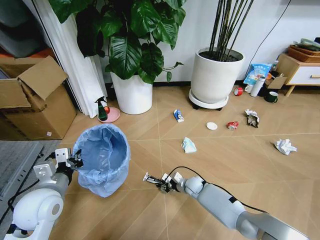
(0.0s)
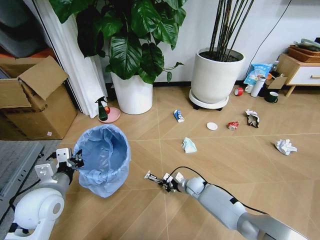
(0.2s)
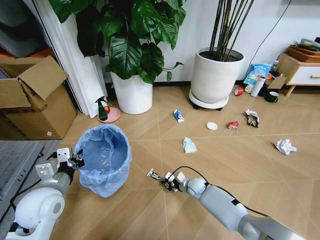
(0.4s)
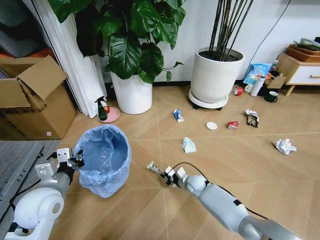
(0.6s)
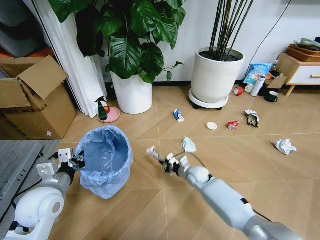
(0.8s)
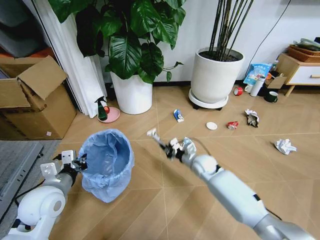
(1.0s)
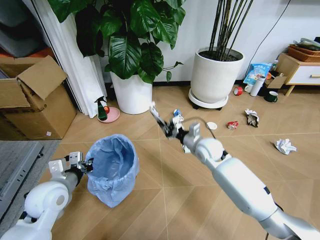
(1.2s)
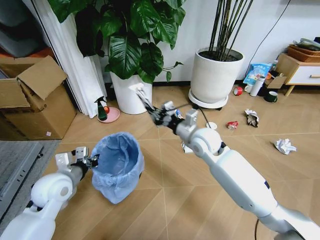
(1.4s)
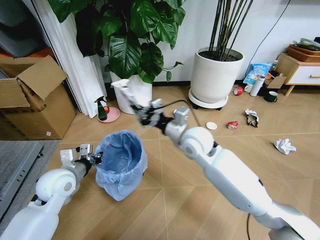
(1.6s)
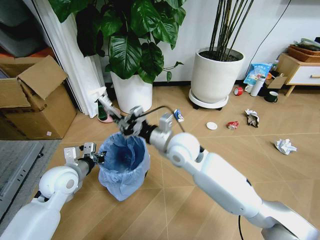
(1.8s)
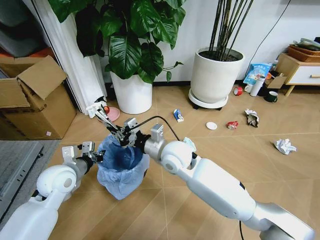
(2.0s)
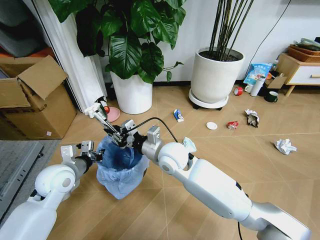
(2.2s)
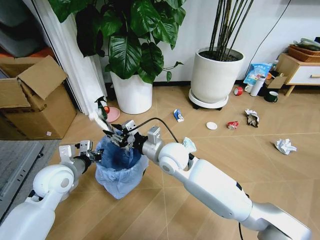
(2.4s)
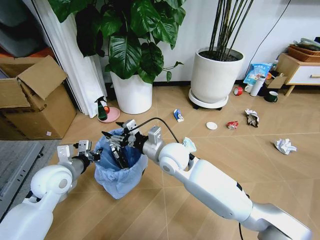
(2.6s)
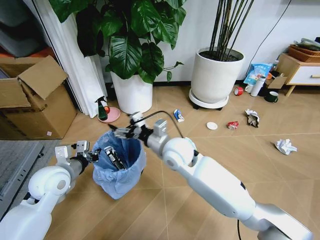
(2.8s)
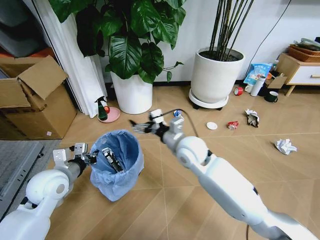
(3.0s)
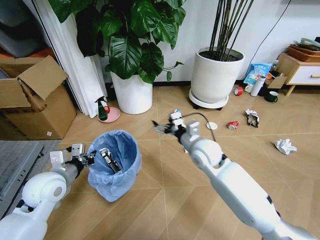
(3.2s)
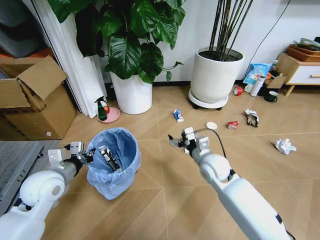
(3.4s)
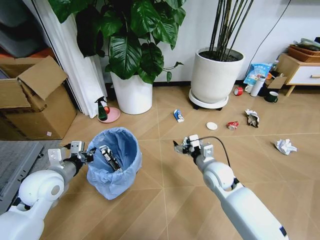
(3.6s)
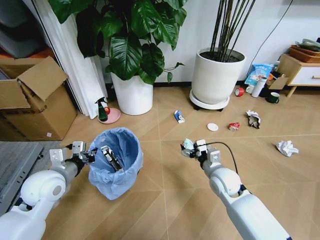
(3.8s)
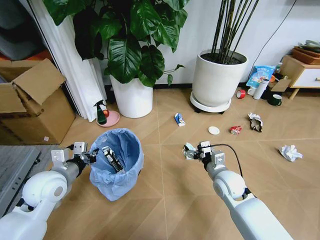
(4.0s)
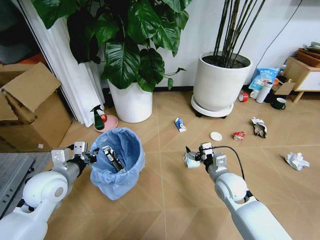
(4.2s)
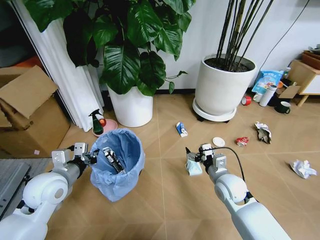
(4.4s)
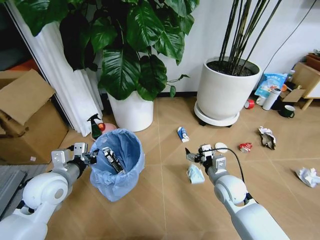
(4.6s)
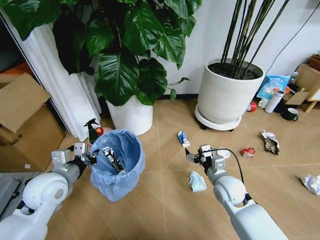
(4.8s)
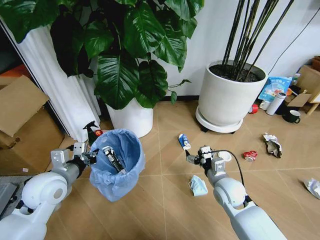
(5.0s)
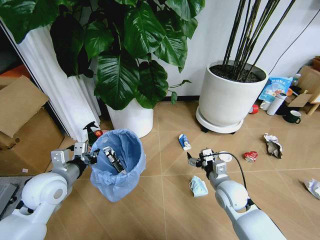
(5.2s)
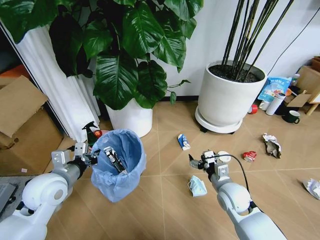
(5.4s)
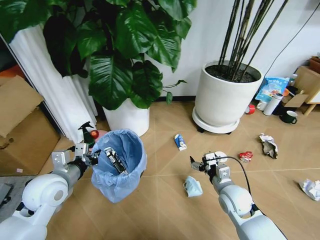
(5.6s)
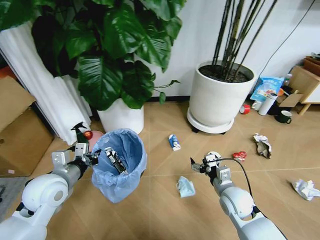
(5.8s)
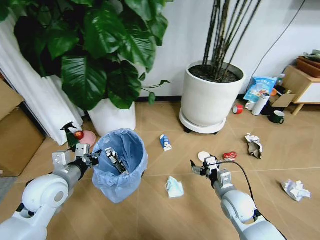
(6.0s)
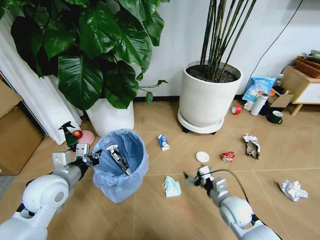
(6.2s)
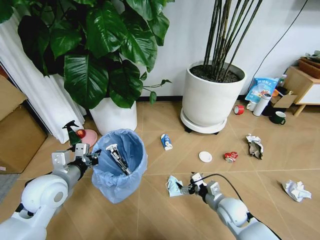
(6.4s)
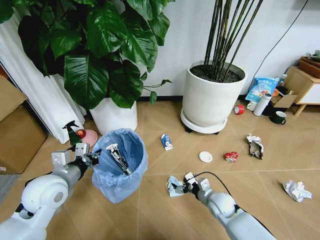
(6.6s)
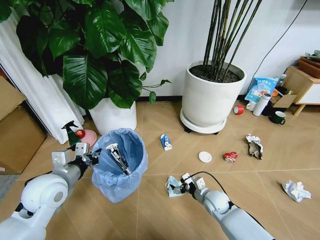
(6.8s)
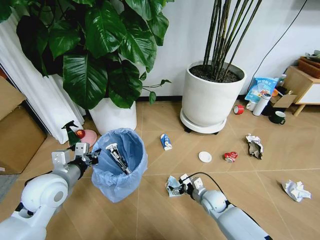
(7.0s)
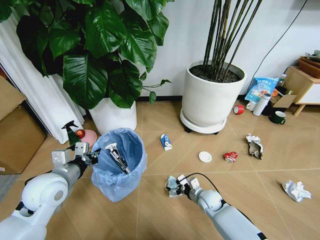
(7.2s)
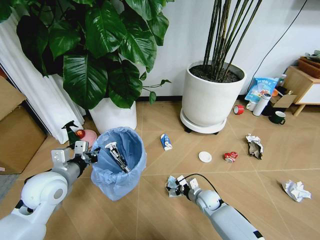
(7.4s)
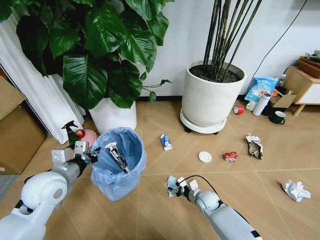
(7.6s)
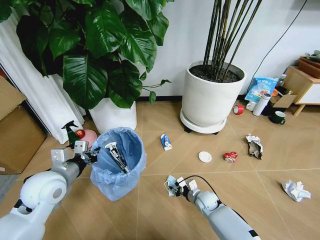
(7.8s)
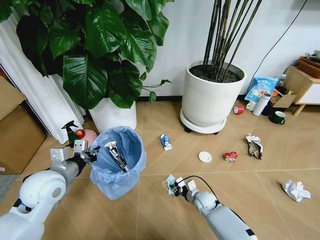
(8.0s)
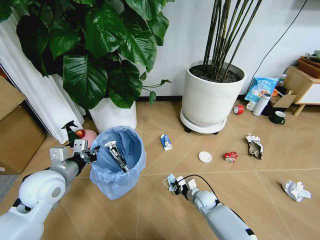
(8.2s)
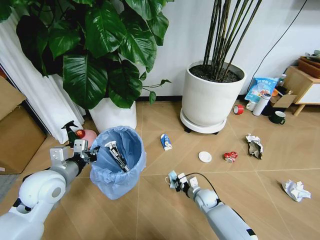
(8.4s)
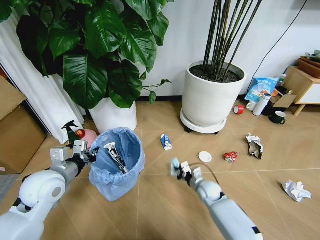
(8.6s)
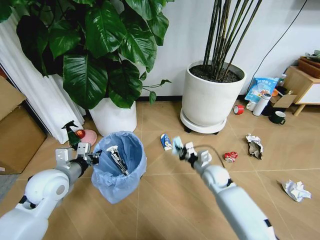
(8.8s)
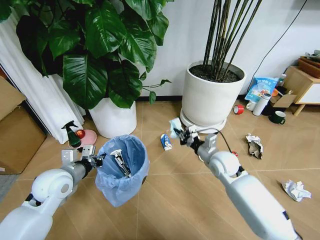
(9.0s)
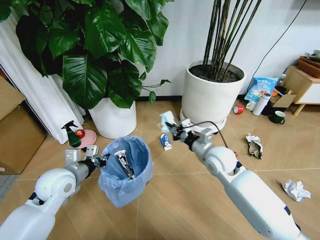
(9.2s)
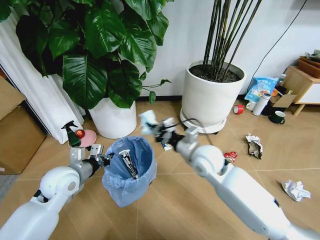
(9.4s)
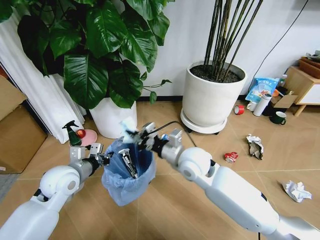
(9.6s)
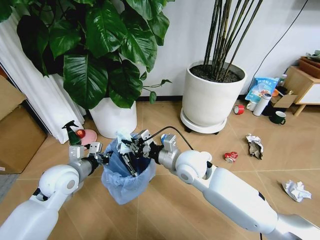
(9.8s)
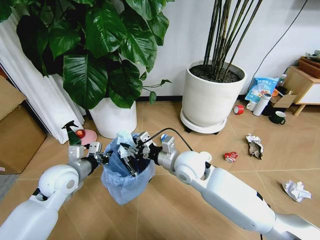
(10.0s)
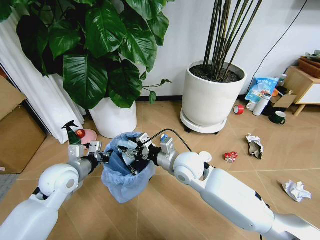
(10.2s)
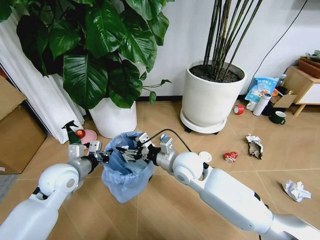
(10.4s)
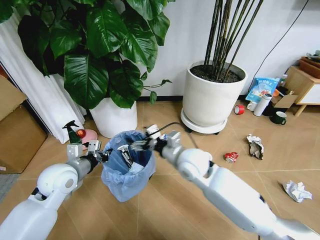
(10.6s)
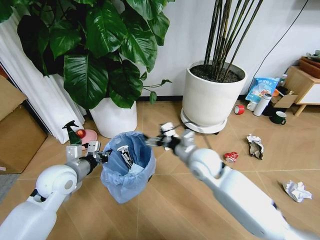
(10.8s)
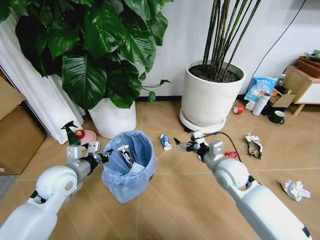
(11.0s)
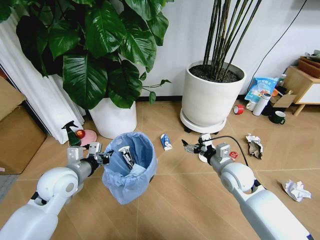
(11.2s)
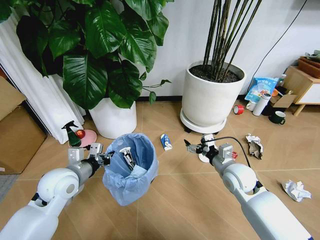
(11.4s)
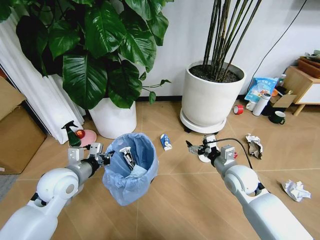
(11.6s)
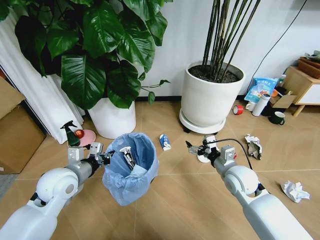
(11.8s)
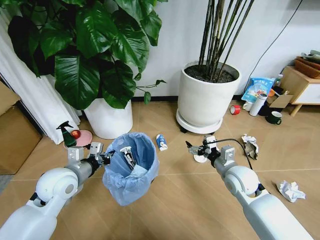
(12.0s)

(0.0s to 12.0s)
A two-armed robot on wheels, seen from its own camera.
Task of the whole recording: Pick up the trash bin and place the garbage on the floor into it.
0.0s - 1.6s: The right gripper moves upward, some 35 cm; the left gripper heads forward, covering roughly 5 cm.
1.6s - 3.0s: The right gripper opens.
3.0s - 4.4s: The right gripper travels to the right, downward and backward by some 20 cm.
4.4s - 6.0s: The right gripper moves about 5 cm.
6.0s - 7.6s: The right gripper moves downward and forward, roughly 15 cm, and closes.
7.6s - 9.0s: The right gripper goes roughly 20 cm upward, and closes.
9.0s - 10.4s: The right gripper shifts approximately 15 cm to the left, and opens its fingers.
10.4s - 12.0s: The right gripper shifts roughly 20 cm to the right.

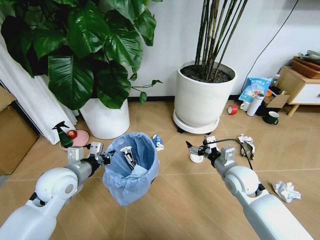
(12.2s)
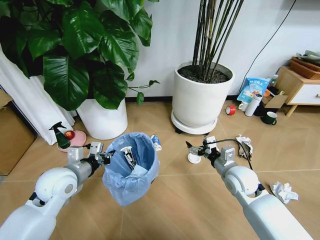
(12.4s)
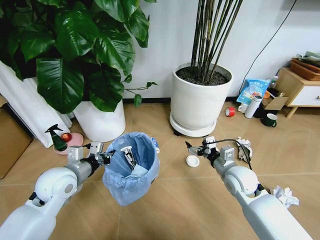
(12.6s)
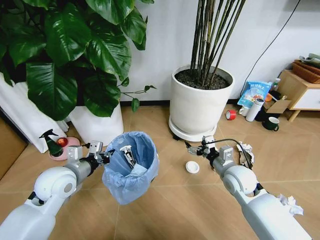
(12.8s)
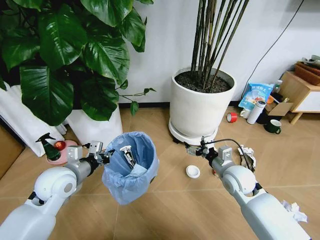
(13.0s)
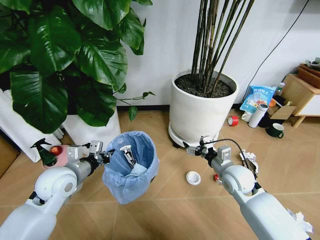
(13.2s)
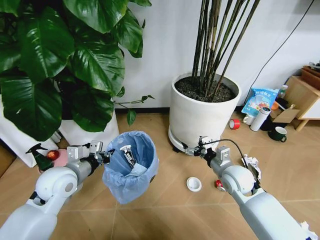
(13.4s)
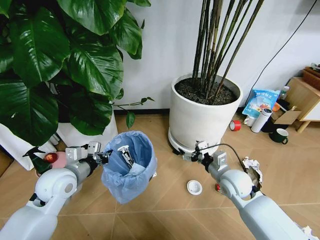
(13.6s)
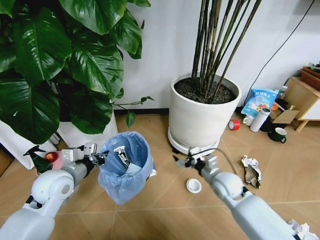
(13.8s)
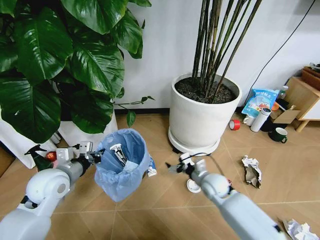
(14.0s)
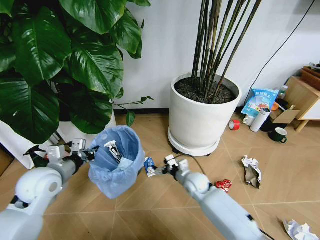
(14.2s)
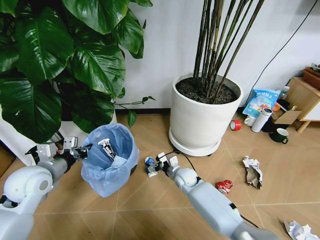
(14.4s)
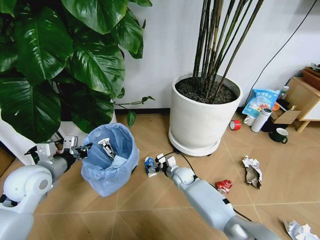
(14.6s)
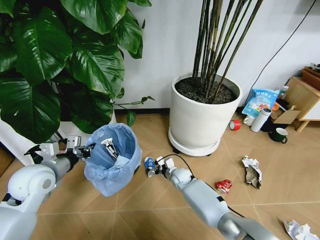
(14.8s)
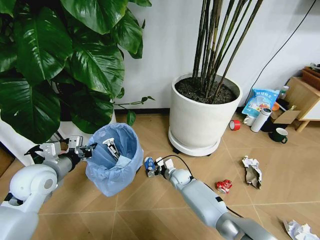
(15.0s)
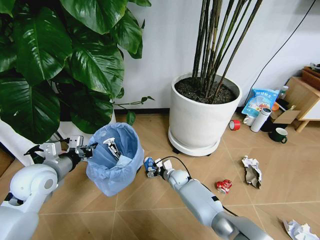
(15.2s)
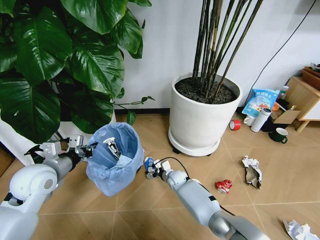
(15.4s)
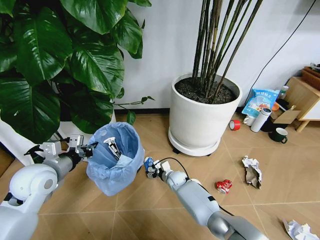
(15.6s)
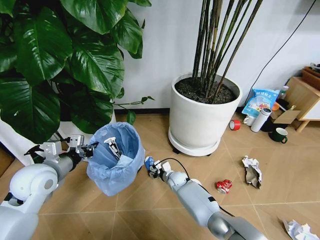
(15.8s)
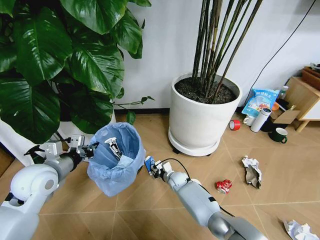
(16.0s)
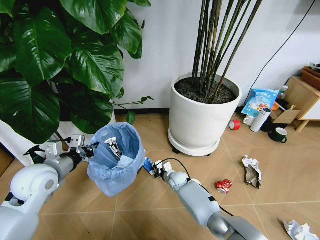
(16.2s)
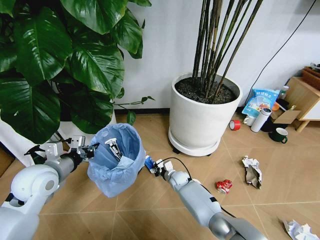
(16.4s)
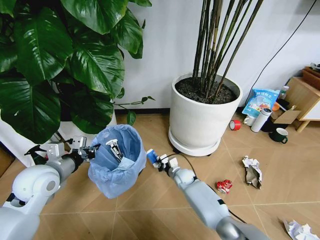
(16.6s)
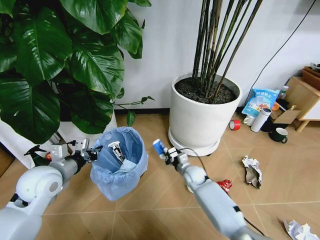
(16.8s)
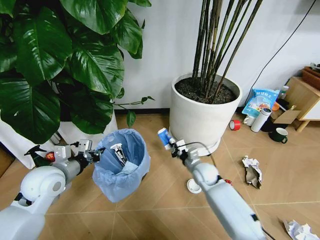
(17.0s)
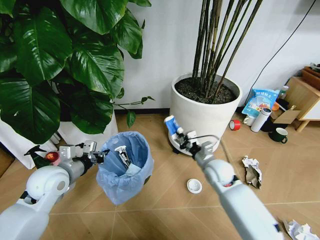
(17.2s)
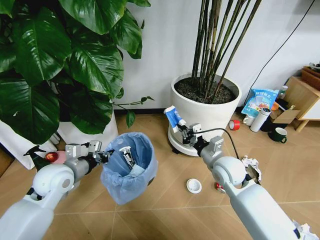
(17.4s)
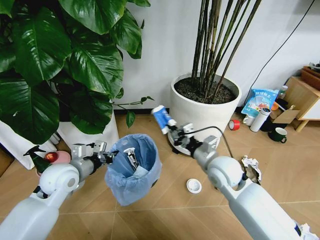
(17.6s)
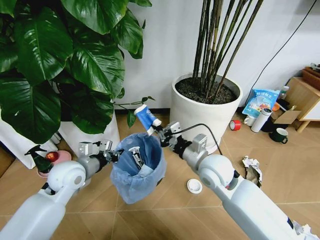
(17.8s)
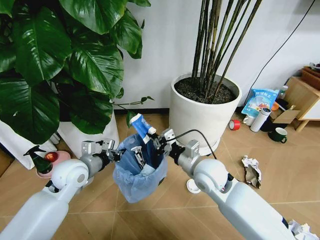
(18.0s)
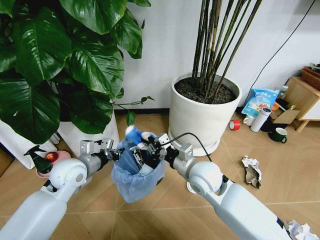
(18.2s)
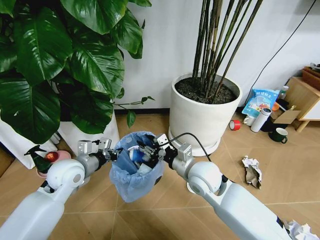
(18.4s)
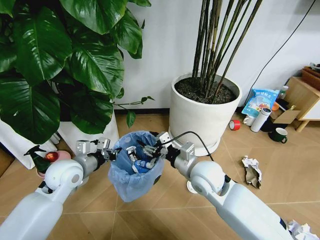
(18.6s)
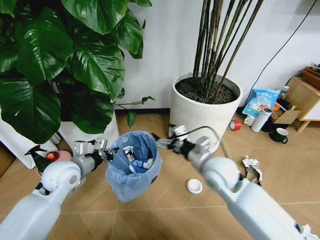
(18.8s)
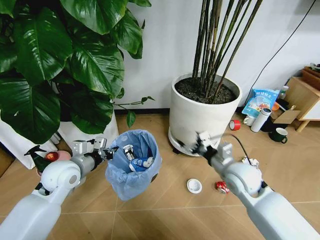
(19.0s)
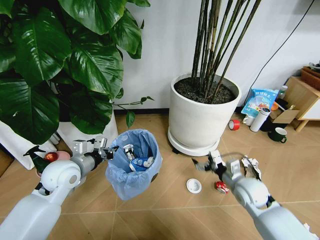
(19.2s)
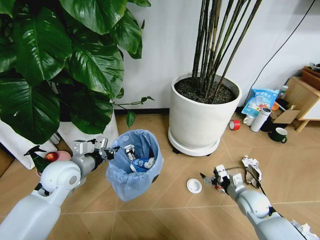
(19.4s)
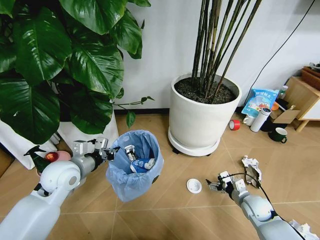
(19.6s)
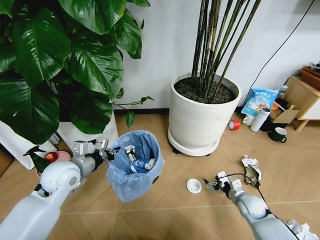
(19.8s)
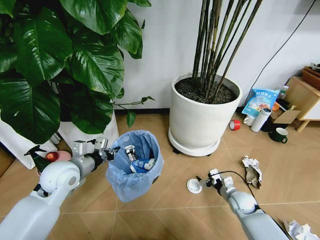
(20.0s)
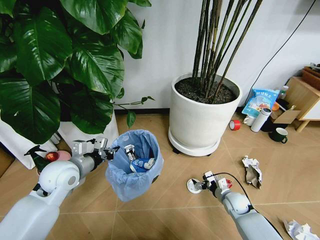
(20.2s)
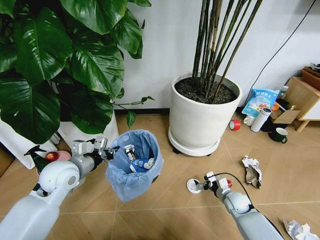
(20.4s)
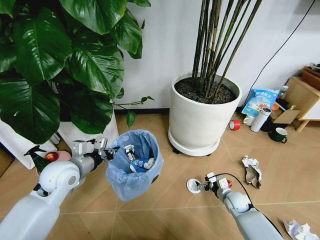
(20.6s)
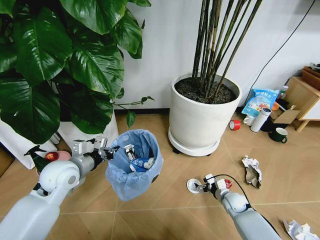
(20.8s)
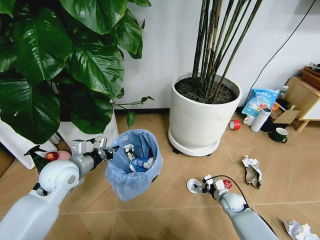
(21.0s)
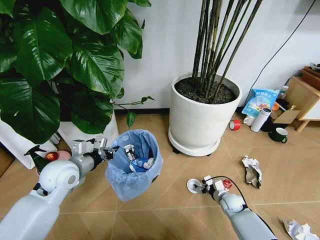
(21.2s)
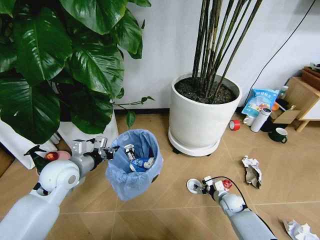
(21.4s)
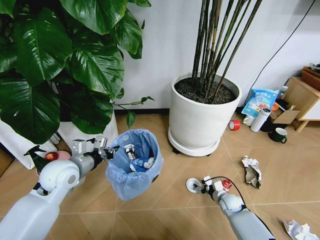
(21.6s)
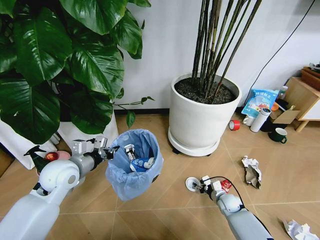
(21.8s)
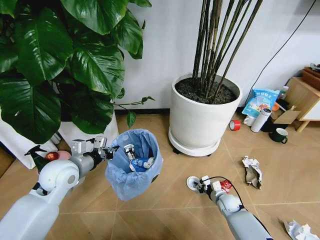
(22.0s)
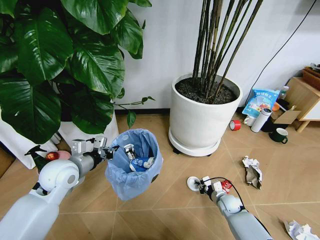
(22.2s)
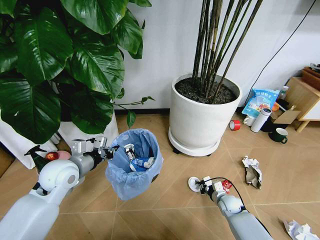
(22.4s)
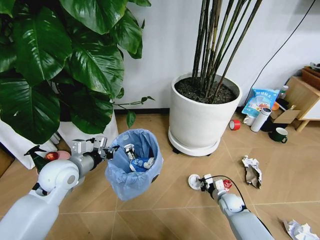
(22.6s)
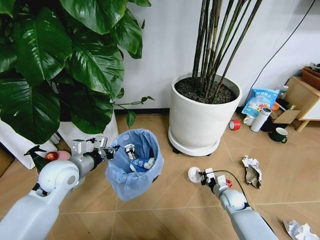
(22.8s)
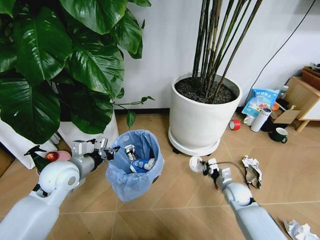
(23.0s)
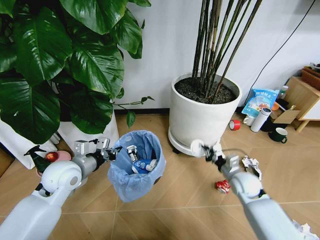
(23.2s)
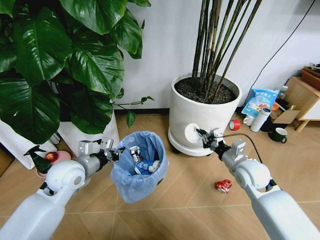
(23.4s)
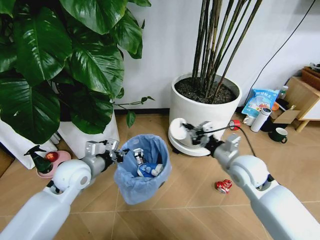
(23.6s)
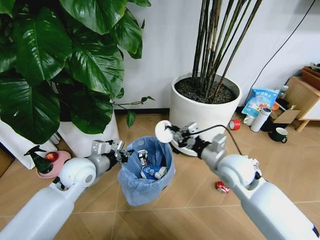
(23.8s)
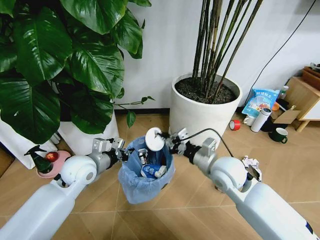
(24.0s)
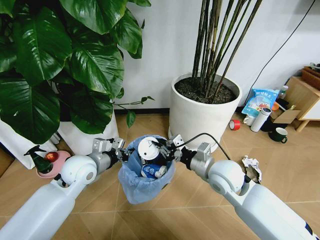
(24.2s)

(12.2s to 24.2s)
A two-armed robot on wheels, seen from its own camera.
Task of the whole recording: Pick up the trash bin and place the garbage on the floor into it.
13.8s - 15.2s: The right gripper is displaced downward, to the left and forward by some 25 cm.
15.2s - 16.6s: The right gripper closes up.
16.6s - 18.2s: The left gripper is displaced to the right by approximately 5 cm, while the right gripper travels upward and backward by about 30 cm.
18.2s - 19.8s: The right gripper moves to the right and downward, roughly 30 cm, and opens its fingers.
19.8s - 21.2s: The right gripper travels downward by approximately 5 cm.
21.2s - 22.6s: The right gripper closes up.
22.6s - 24.2s: The left gripper ends up about 5 cm from where it was. The right gripper travels upward and to the left by about 30 cm.
